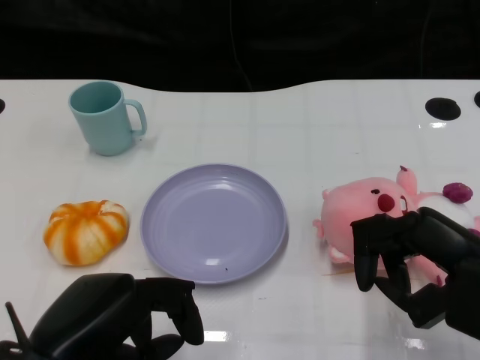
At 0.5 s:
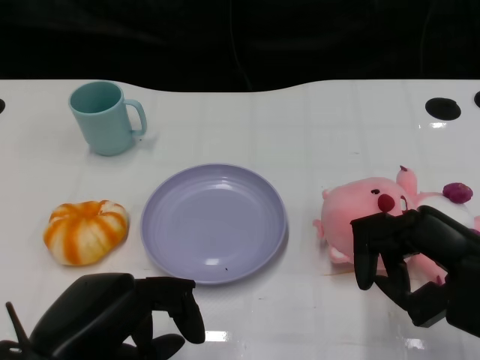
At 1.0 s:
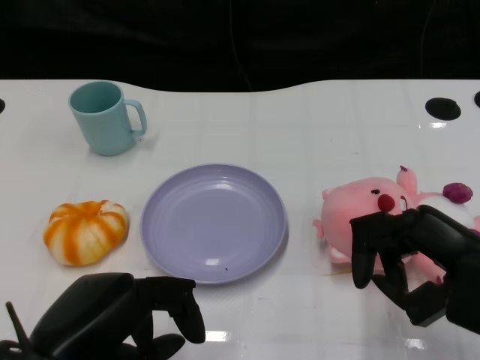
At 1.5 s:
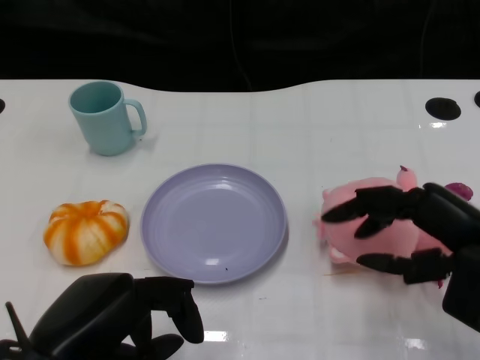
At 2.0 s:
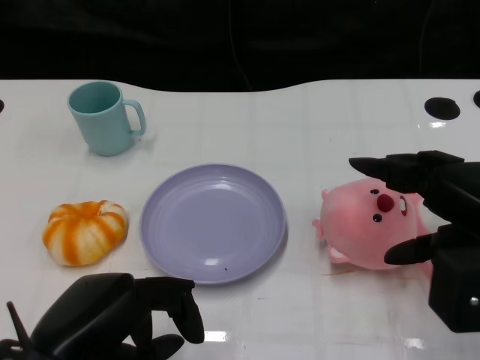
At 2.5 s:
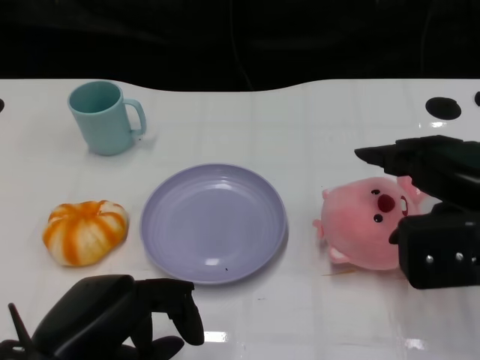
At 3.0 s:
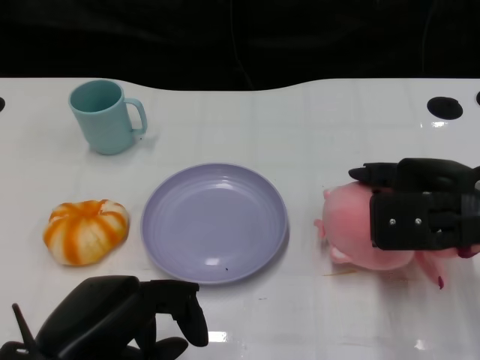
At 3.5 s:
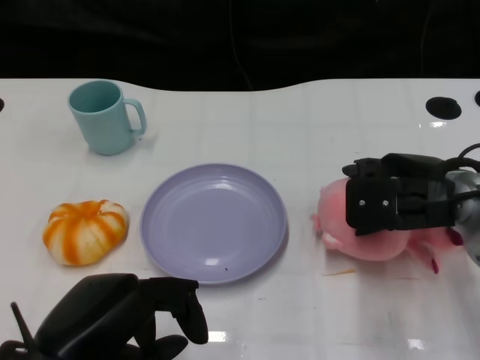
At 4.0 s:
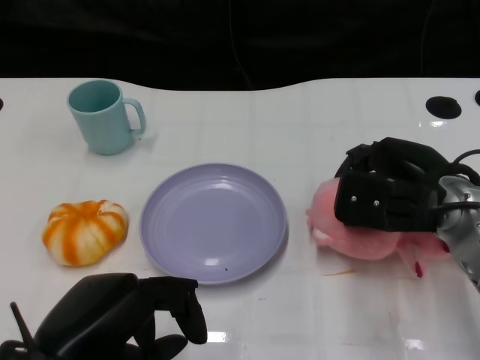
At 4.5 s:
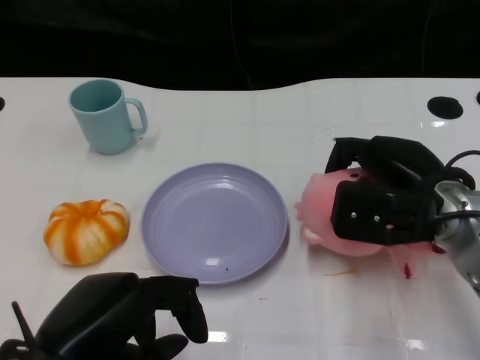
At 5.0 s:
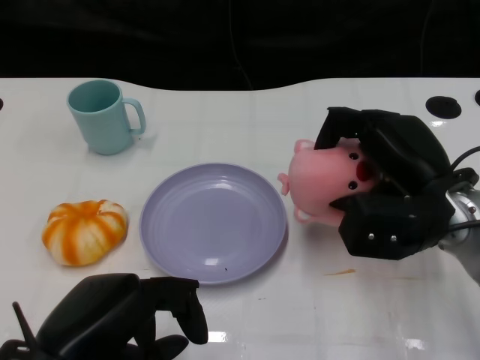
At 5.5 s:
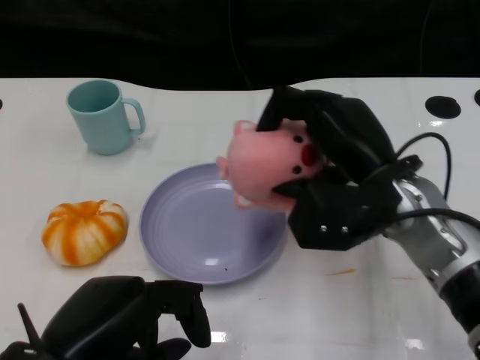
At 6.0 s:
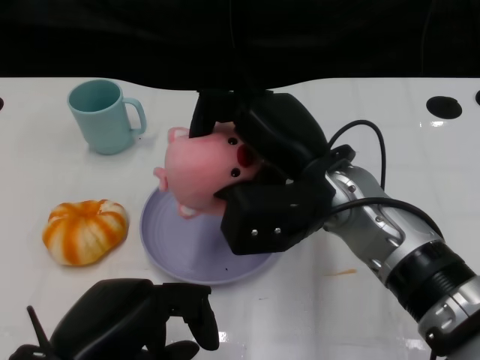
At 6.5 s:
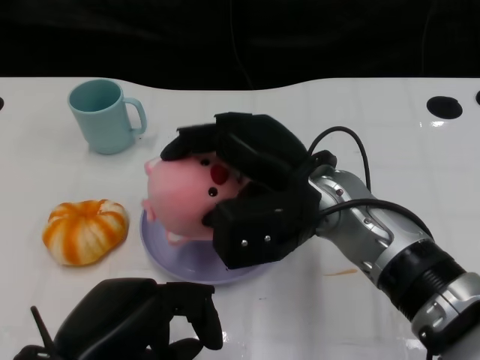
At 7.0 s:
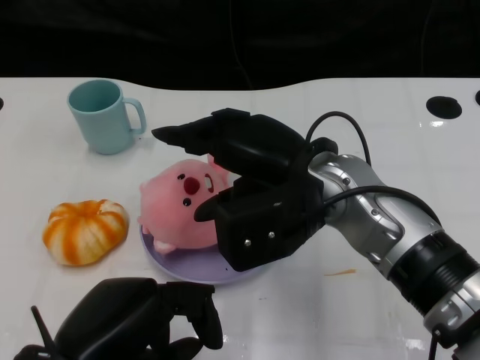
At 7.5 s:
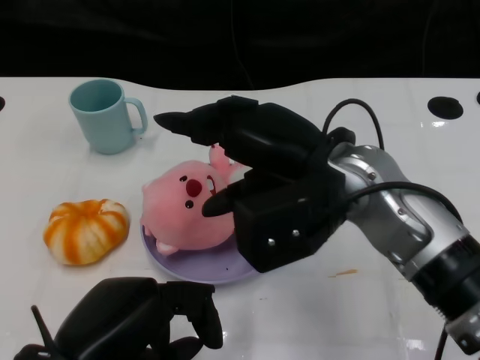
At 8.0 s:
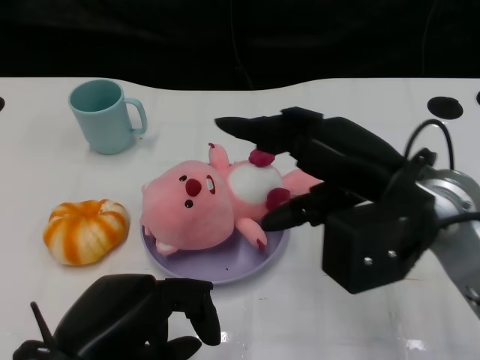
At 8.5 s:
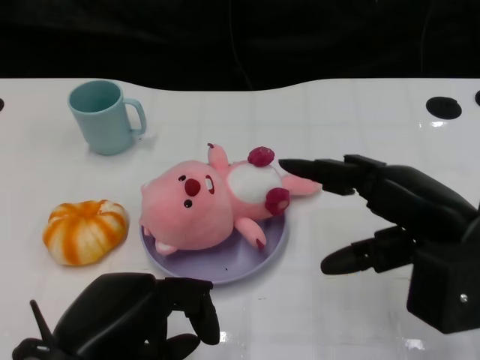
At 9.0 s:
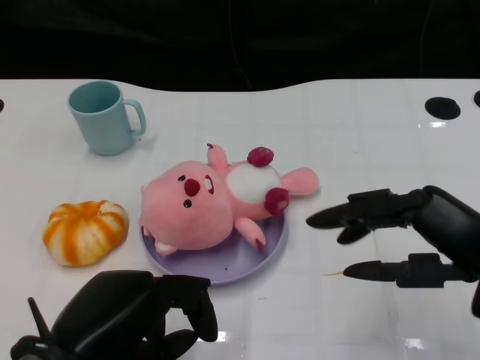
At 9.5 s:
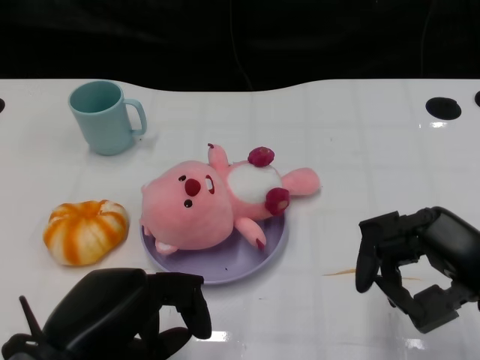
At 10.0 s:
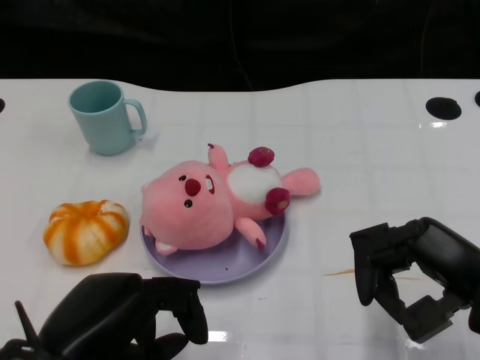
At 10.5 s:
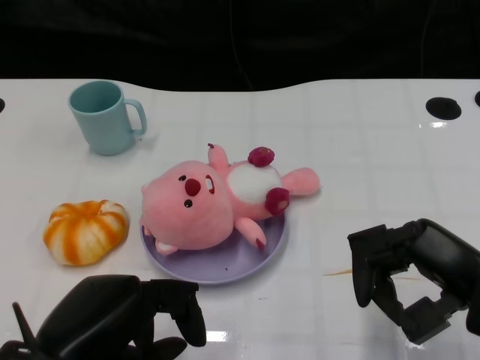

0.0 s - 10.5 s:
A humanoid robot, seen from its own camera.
Task of the whole recording: Pick up the doll on the other side of the plate and place it into the plate.
Step, 1.0 s - 5.5 s: Grasp the pink doll with the right gripper.
Step, 6.0 s - 8.0 s: Place the pink doll into the plate with the right gripper.
2.0 s - 4.0 s: The right hand travels forward, to the left and downward by roughly 10 cm.
4.0 s - 6.5 s: The right hand is displaced to the left by approximately 15 cm.
6.5 s - 8.5 s: The right hand goes roughly 15 cm to the right.
8.5 s - 10.5 s: The right hand ends up about 5 cm from where it was.

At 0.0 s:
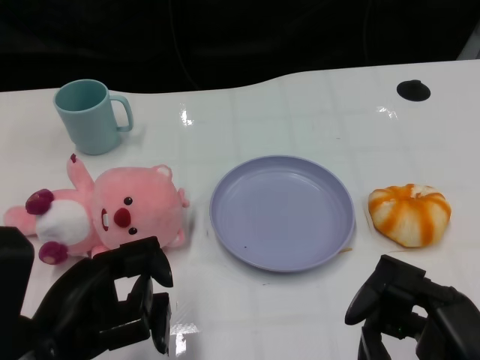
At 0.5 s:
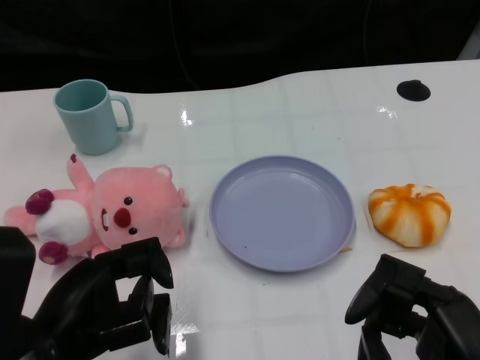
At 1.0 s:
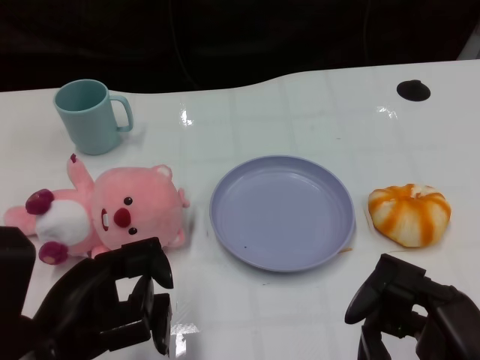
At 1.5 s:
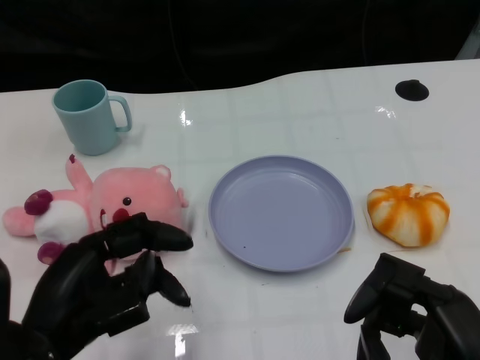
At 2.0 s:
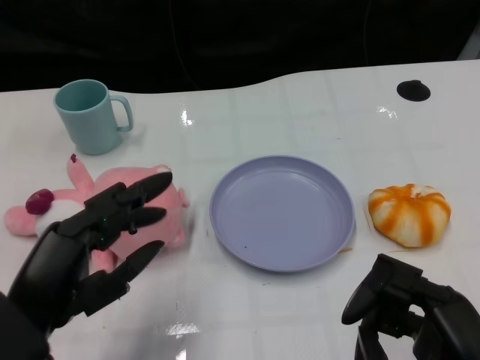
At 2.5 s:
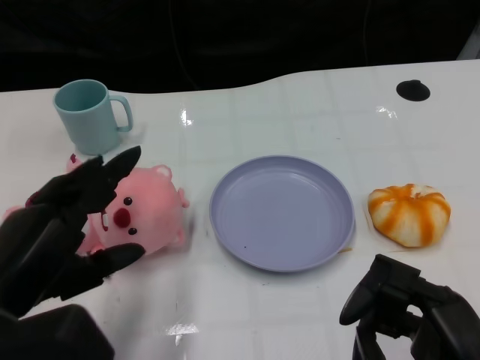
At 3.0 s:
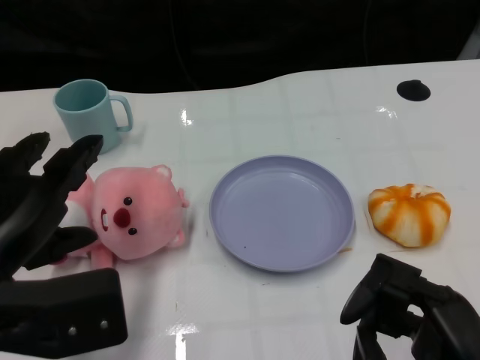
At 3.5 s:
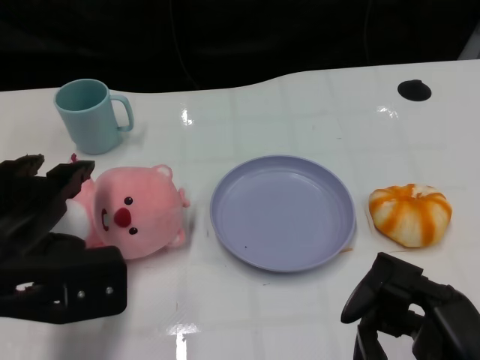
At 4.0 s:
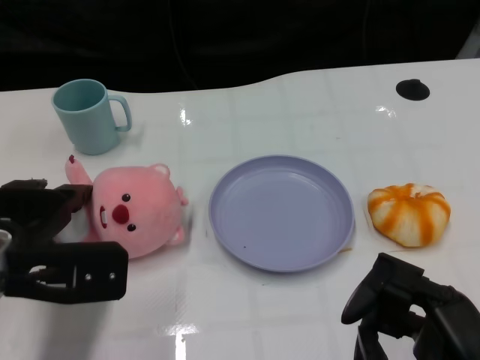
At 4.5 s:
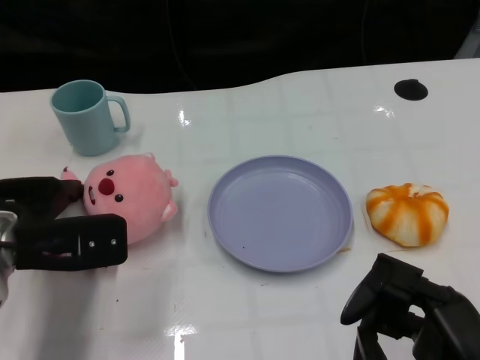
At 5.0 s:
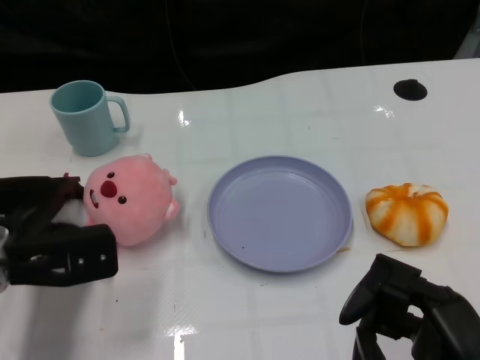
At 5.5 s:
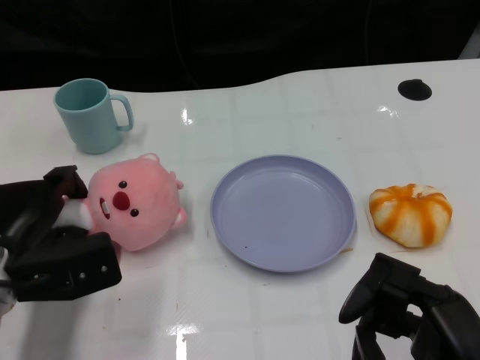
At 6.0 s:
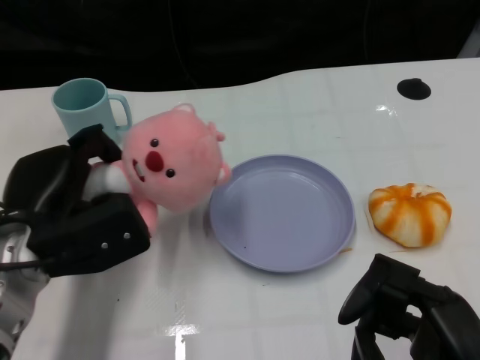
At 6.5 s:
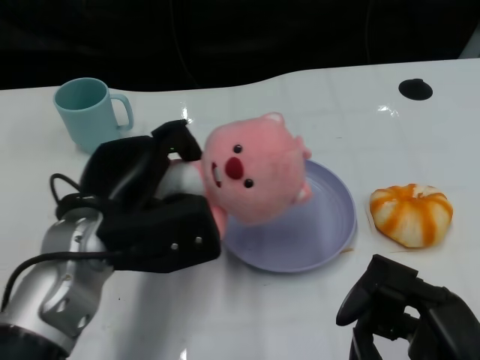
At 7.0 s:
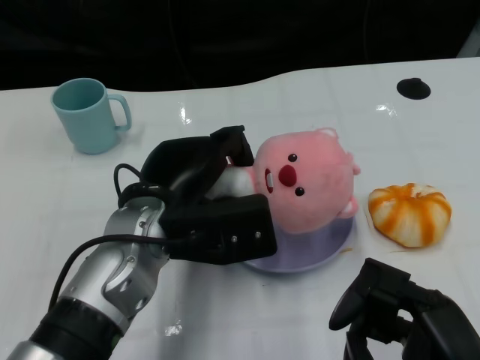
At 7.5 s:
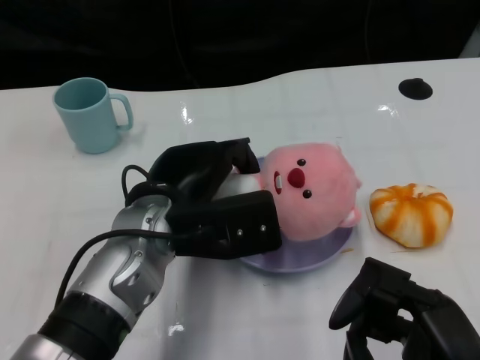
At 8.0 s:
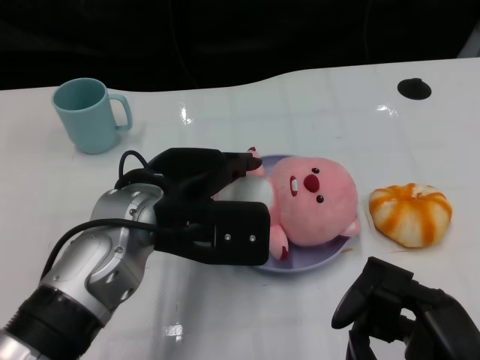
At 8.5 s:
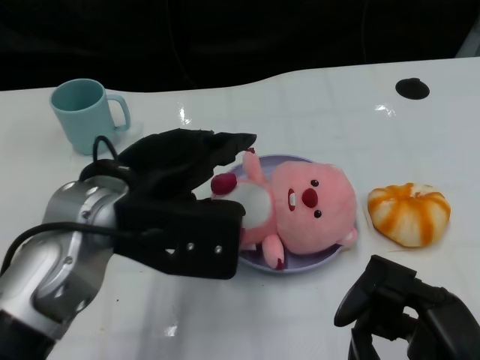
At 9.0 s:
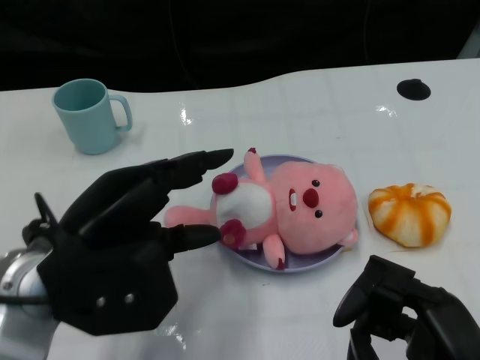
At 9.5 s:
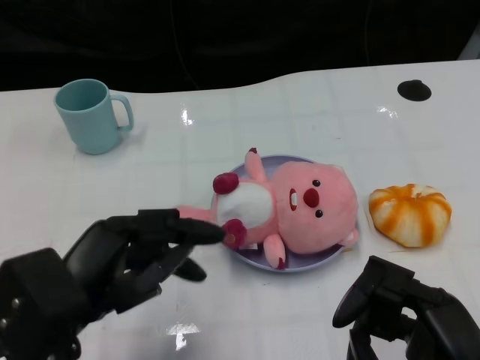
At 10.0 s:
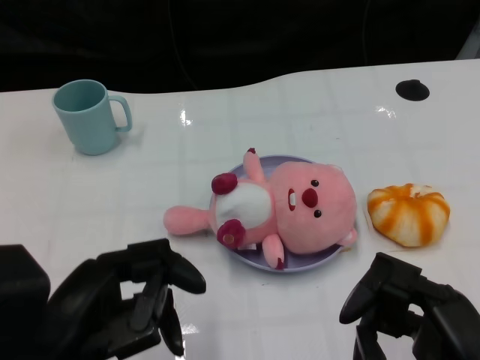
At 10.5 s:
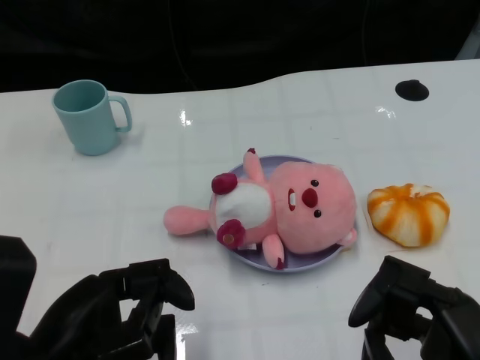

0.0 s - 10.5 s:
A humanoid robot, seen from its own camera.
Task of the whole recording: Pick up the doll on one side of the plate and place it into the plate.
Step, 1.5 s - 5.5 s: Grasp the pink doll with the left gripper.
Step, 6.0 s - 8.0 s: Place the pink doll into the plate with the left gripper.
2.0 s - 4.0 s: The left hand is displaced forward by approximately 10 cm.
4.0 s - 6.5 s: The left hand heads to the right, covering some 10 cm.
6.5 s - 8.5 s: The left hand moves upward, about 5 cm.
8.5 s - 10.5 s: The left hand goes some 15 cm backward, to the left and downward.

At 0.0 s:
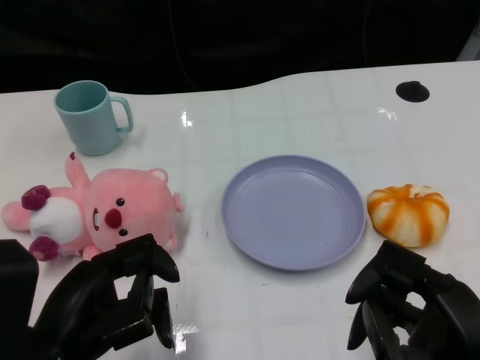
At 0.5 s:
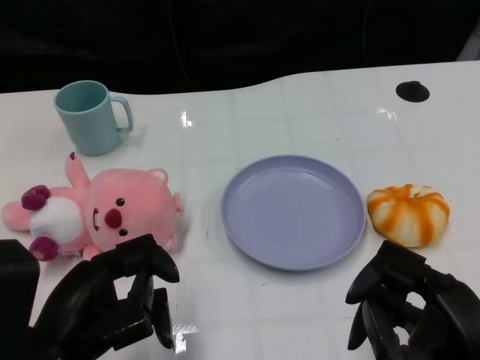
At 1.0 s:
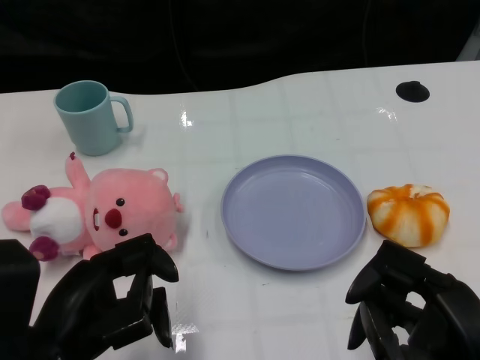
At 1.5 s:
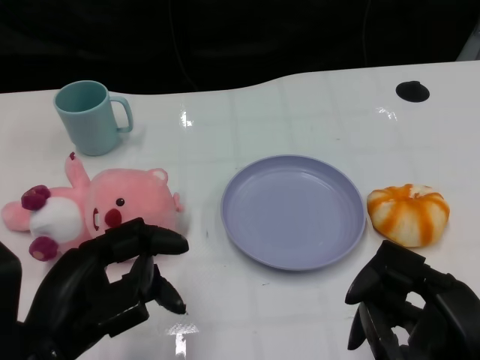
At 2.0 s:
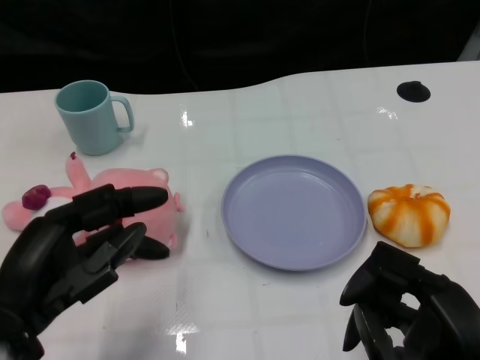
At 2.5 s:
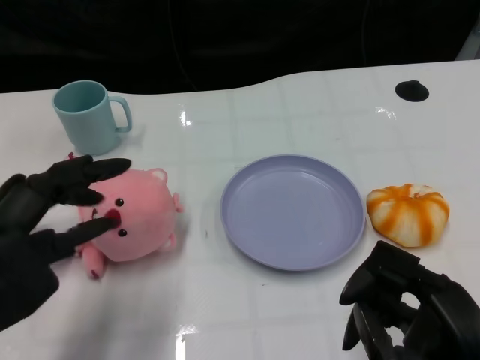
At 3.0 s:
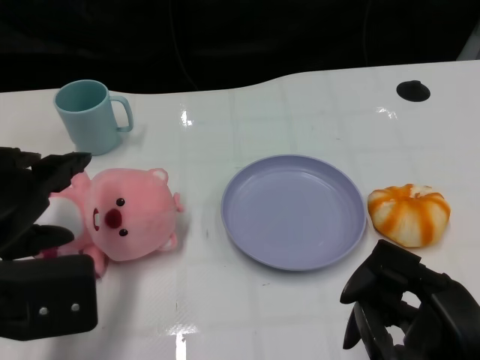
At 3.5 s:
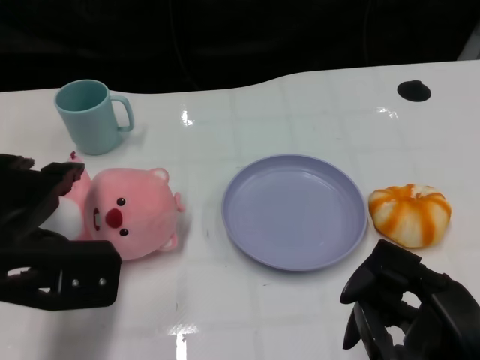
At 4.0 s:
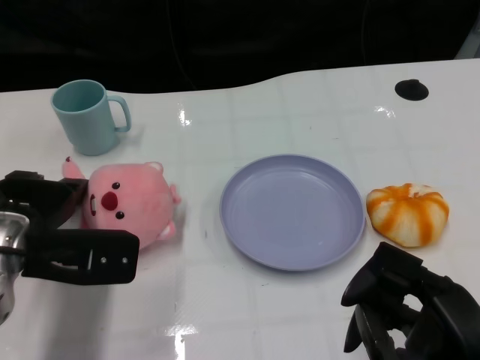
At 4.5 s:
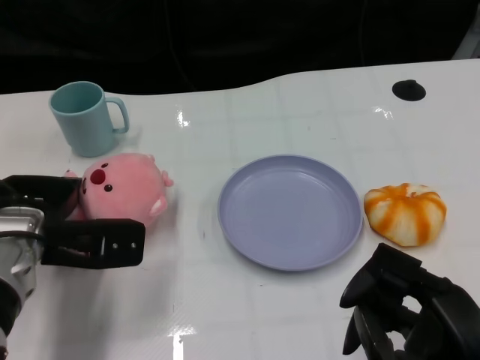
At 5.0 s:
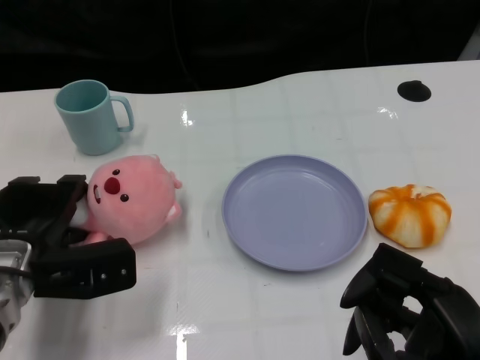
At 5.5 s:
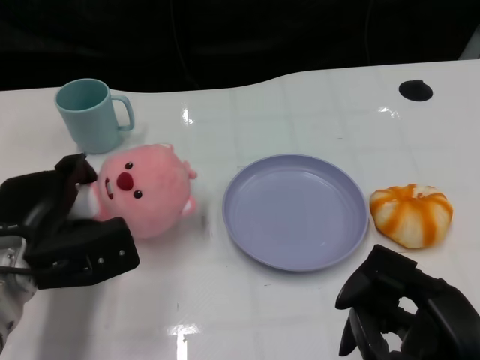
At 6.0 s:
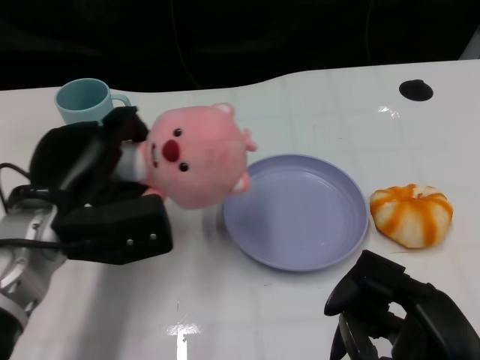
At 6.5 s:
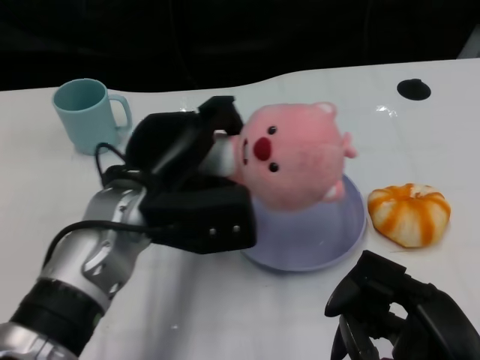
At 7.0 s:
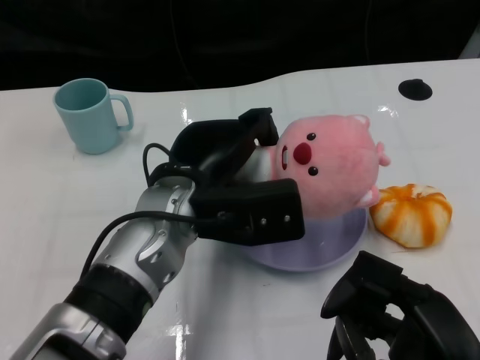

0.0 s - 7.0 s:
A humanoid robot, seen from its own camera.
Task of the whole recording: Pick up the doll on one side of the plate and place it into the plate.
Step, 1.0 s - 5.5 s: Grasp the pink doll with the left gripper.
2.0 s - 3.5 s: The left hand shifts some 5 cm forward.
3.5 s - 5.0 s: The left hand is displaced downward by roughly 10 cm.
5.0 s - 7.0 s: The left hand shifts approximately 20 cm to the right and upward.
